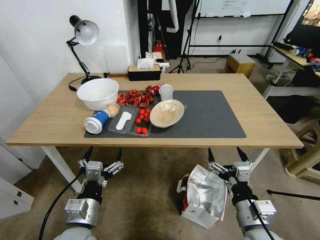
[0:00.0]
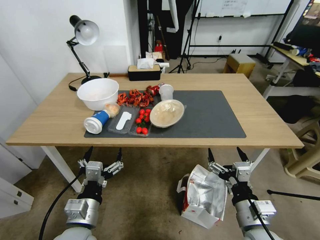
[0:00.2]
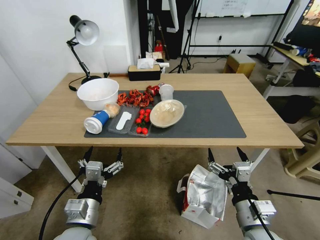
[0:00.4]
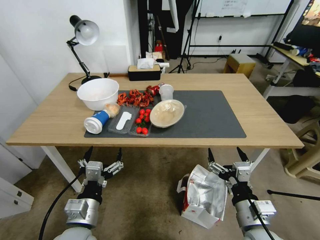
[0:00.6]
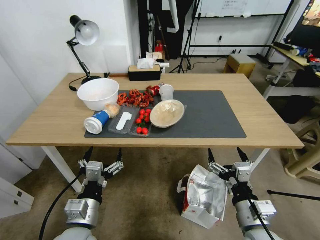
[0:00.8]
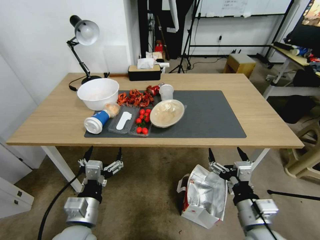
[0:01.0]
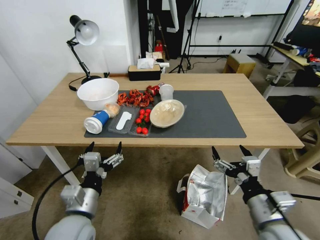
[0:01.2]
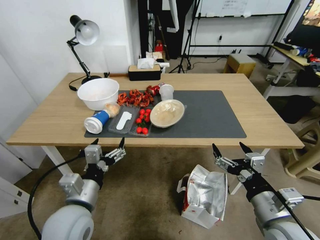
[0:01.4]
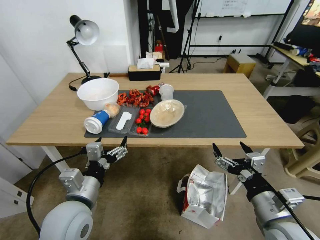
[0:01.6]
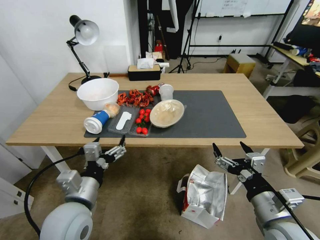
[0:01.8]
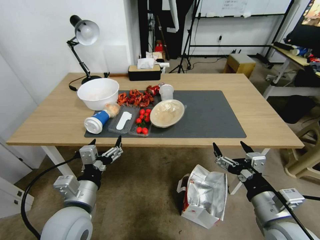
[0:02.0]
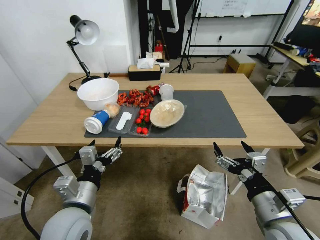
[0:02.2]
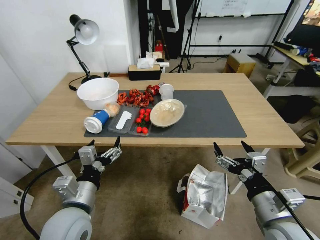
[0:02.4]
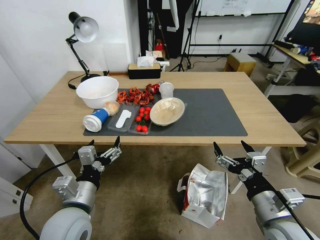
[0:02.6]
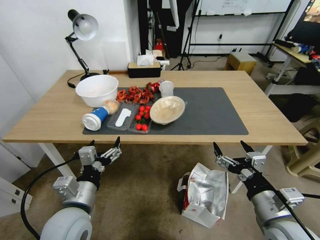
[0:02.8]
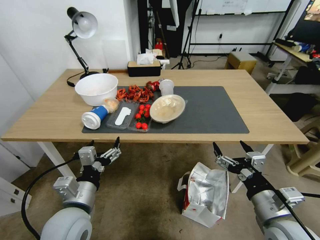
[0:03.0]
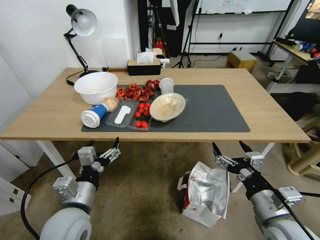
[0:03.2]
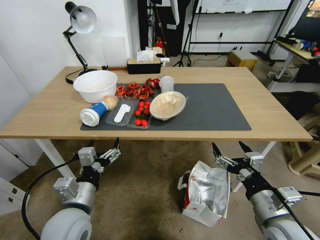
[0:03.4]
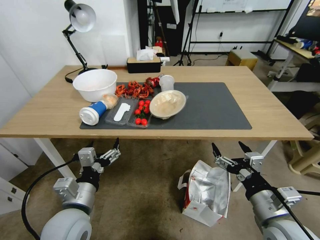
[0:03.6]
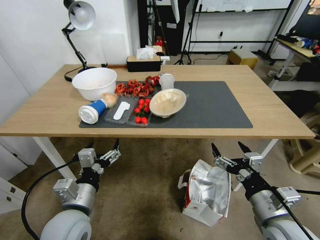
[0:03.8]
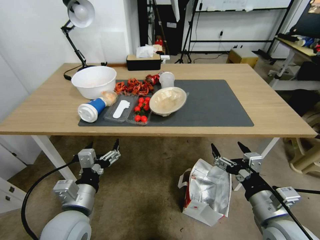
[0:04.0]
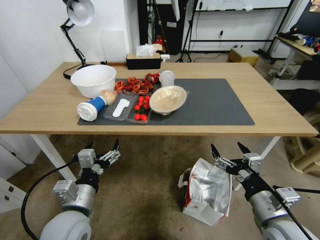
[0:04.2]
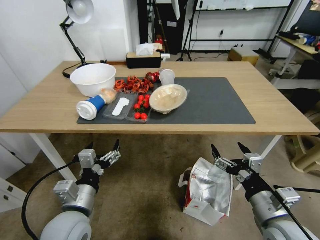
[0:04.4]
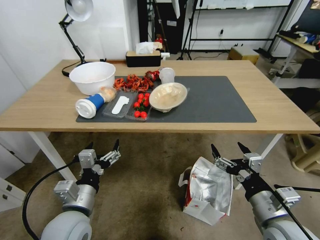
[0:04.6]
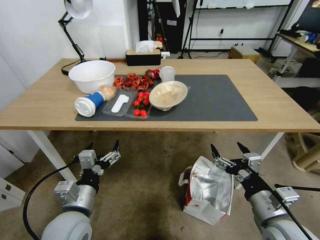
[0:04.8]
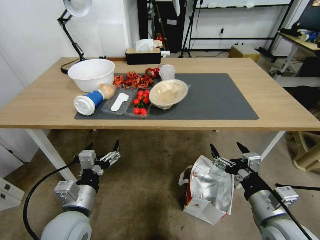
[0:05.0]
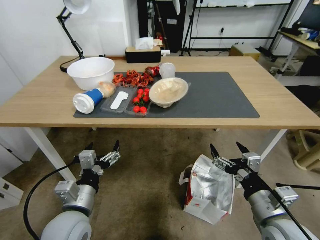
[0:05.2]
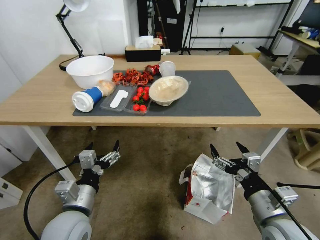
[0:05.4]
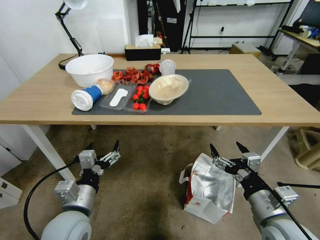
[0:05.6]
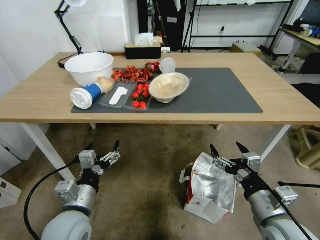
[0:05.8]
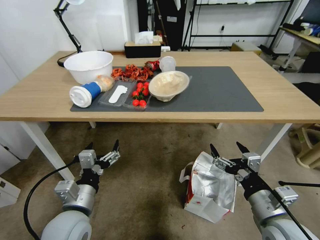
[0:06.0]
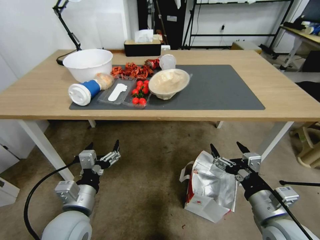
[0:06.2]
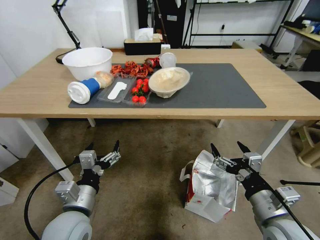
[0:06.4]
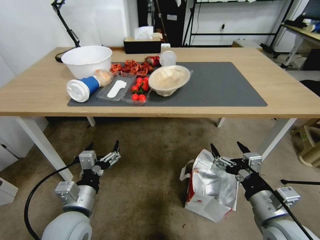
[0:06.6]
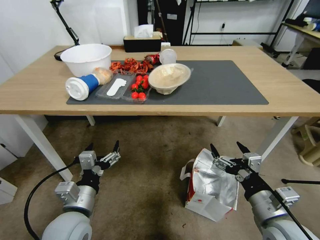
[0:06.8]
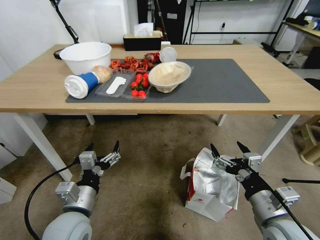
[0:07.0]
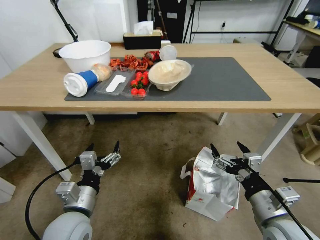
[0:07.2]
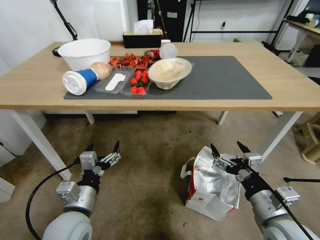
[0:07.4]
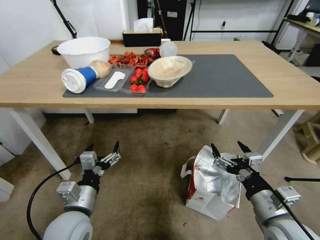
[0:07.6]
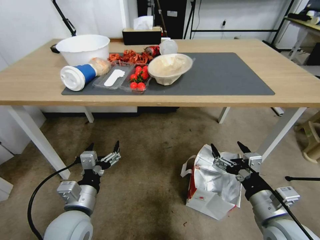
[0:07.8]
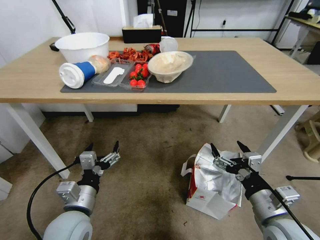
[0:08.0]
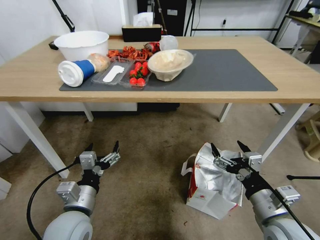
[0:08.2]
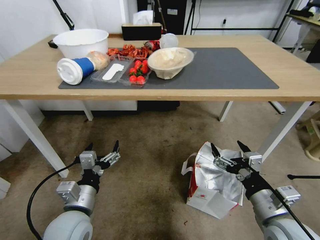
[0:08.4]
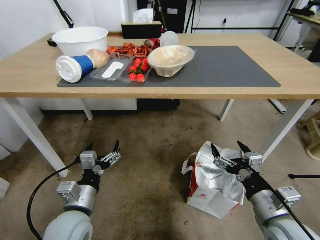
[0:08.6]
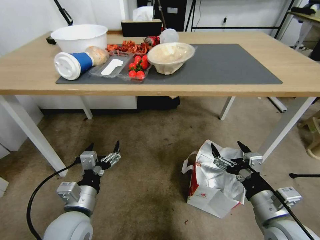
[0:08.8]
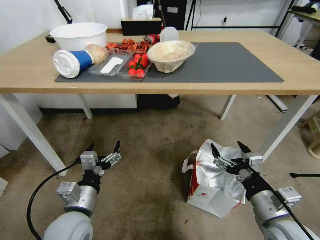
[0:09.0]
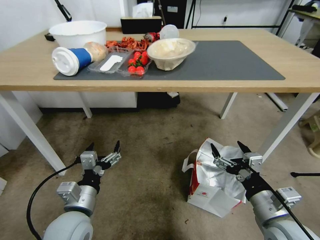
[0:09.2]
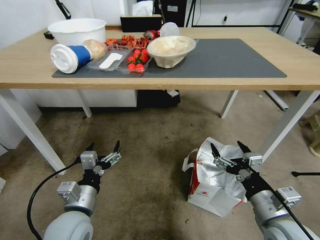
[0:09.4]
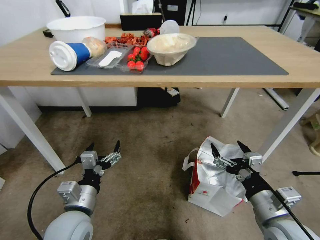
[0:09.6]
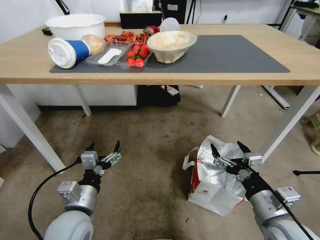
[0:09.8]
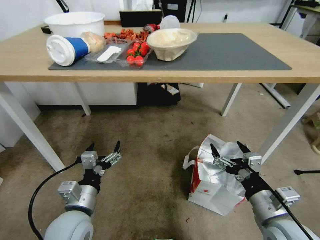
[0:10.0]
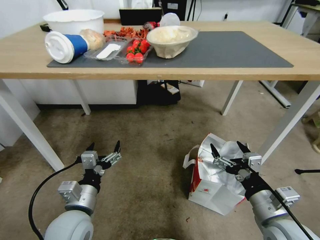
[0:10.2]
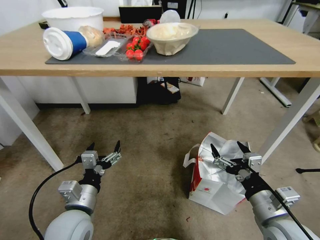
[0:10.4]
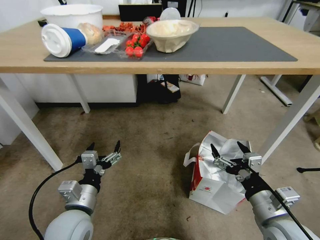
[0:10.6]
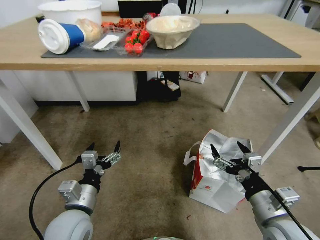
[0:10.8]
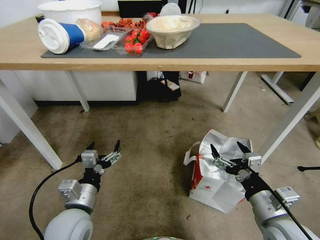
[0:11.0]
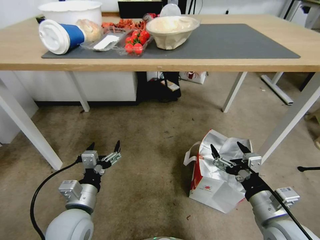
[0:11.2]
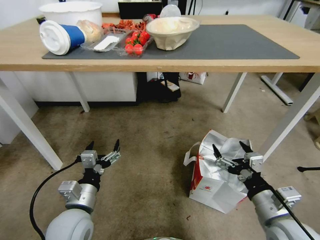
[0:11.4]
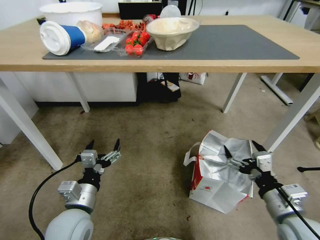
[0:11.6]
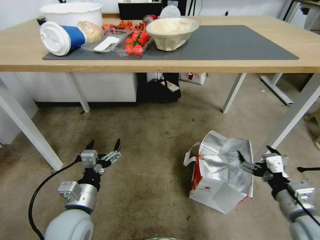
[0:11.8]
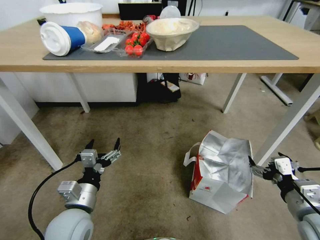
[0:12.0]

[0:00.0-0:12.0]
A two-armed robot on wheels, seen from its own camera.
Task of the whole recording: Pick up the food delivery bag from the floor and place it on the table.
0:10.4 to 0:12.0: The right gripper travels to the right by about 10 cm.

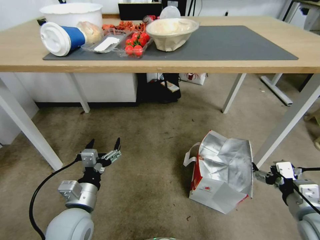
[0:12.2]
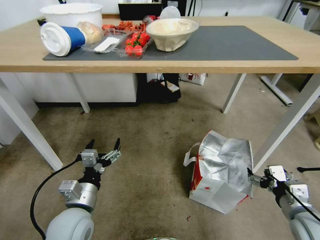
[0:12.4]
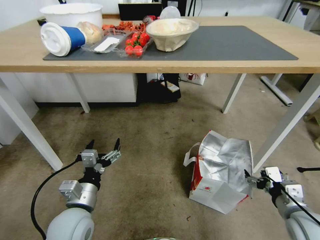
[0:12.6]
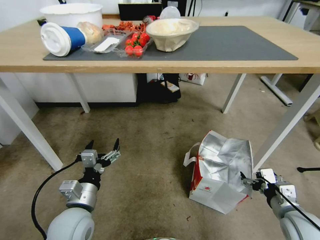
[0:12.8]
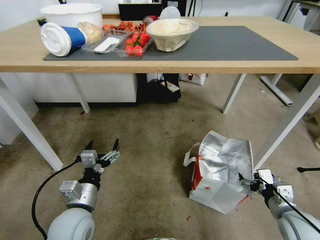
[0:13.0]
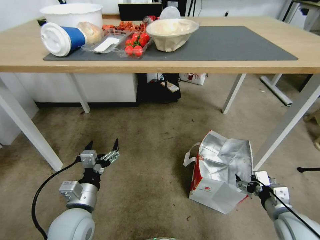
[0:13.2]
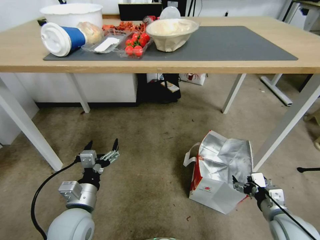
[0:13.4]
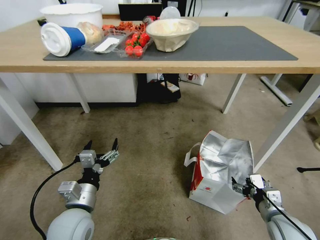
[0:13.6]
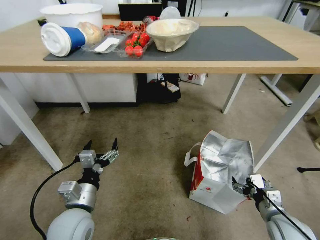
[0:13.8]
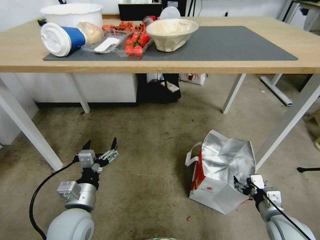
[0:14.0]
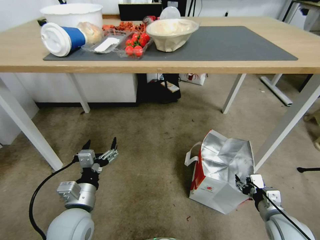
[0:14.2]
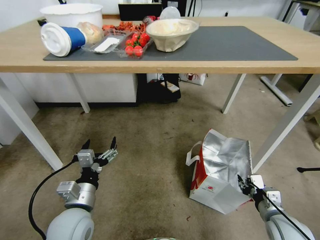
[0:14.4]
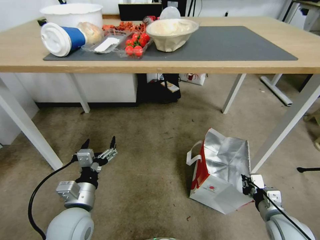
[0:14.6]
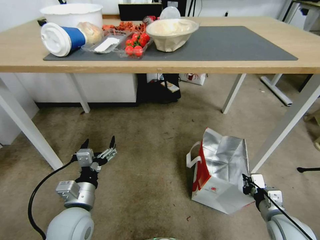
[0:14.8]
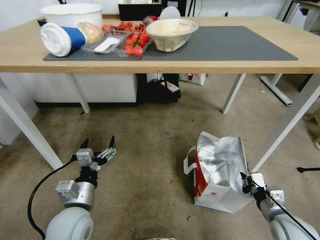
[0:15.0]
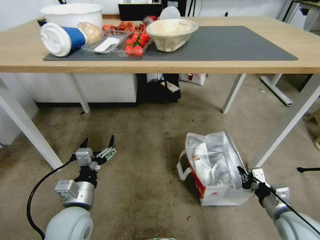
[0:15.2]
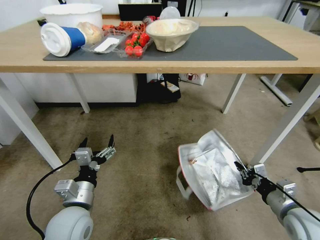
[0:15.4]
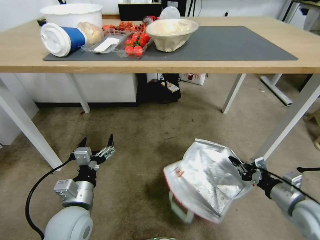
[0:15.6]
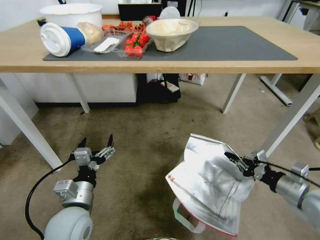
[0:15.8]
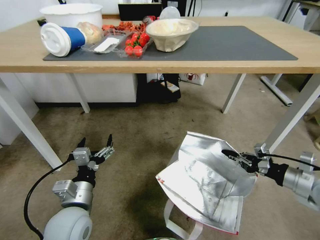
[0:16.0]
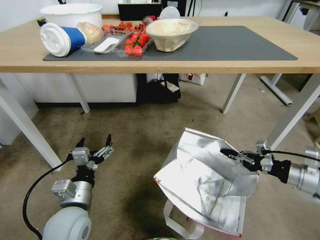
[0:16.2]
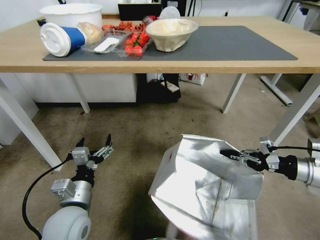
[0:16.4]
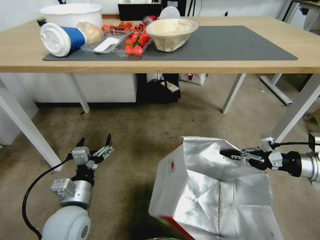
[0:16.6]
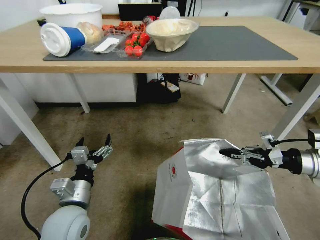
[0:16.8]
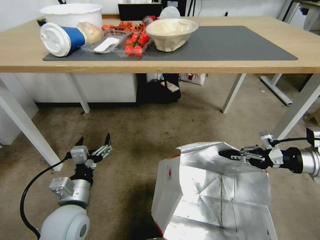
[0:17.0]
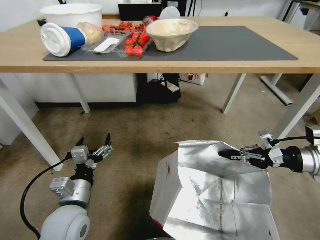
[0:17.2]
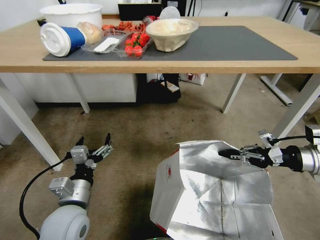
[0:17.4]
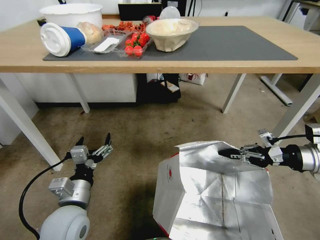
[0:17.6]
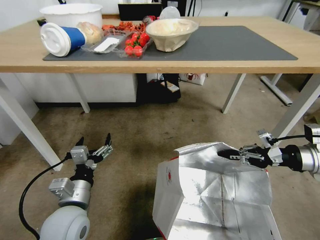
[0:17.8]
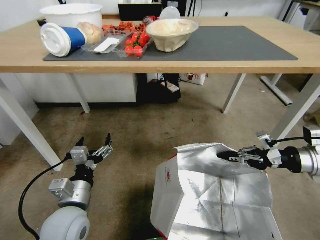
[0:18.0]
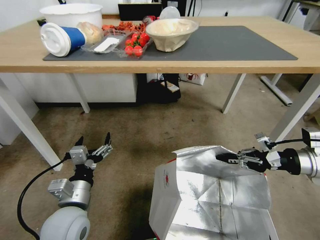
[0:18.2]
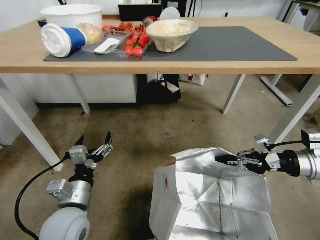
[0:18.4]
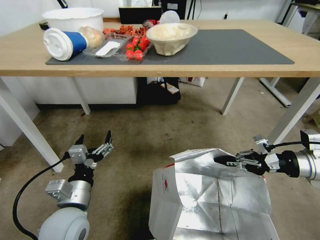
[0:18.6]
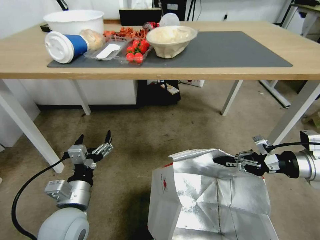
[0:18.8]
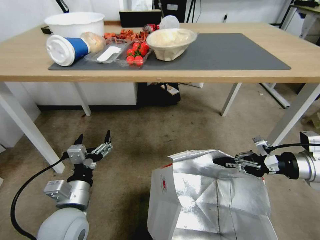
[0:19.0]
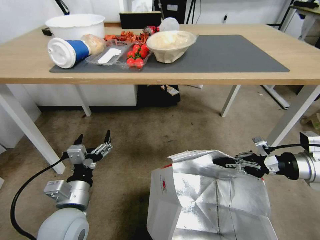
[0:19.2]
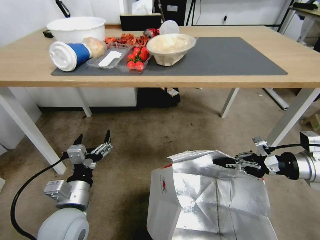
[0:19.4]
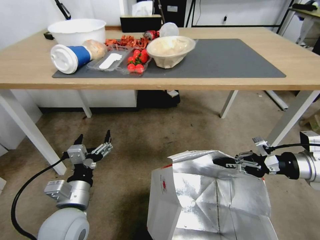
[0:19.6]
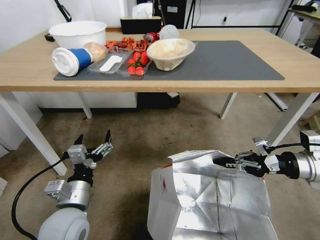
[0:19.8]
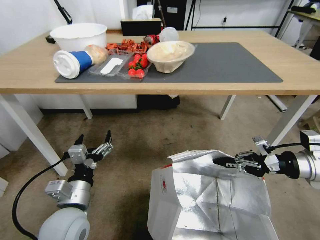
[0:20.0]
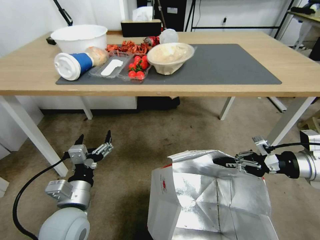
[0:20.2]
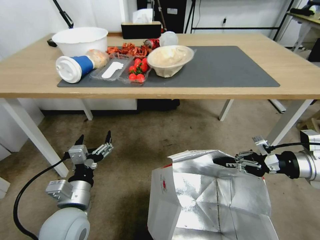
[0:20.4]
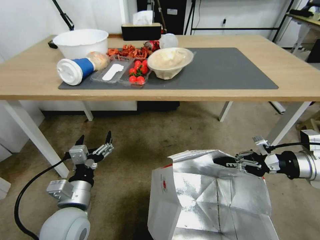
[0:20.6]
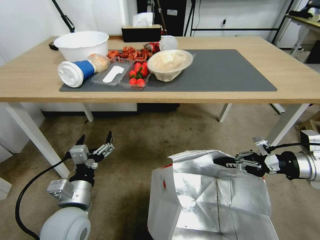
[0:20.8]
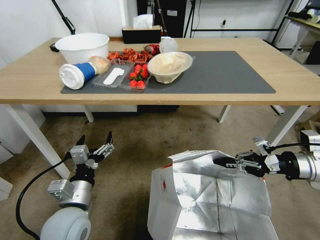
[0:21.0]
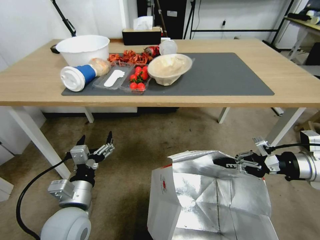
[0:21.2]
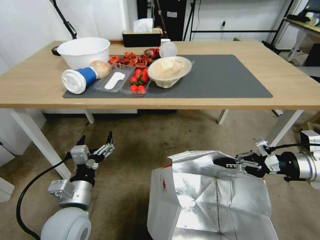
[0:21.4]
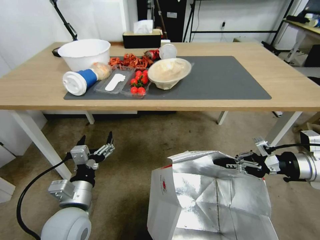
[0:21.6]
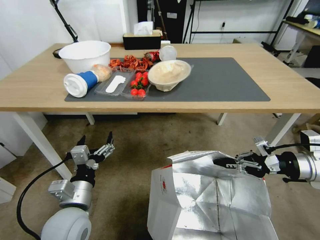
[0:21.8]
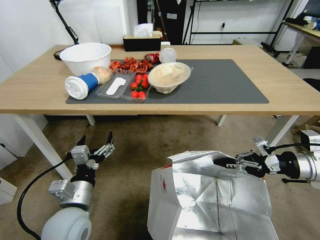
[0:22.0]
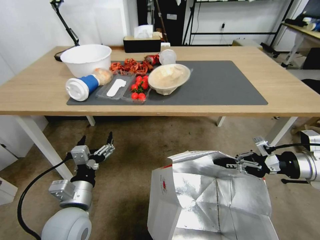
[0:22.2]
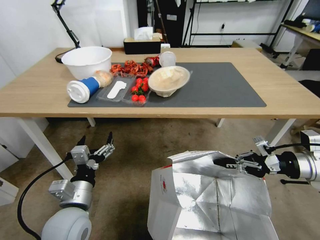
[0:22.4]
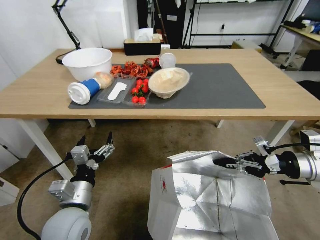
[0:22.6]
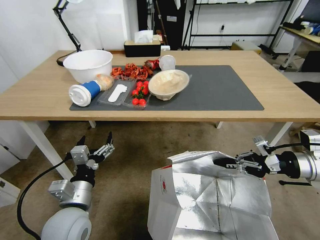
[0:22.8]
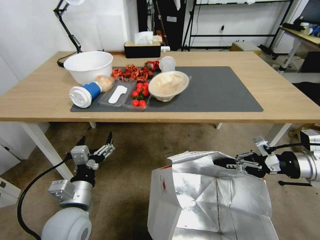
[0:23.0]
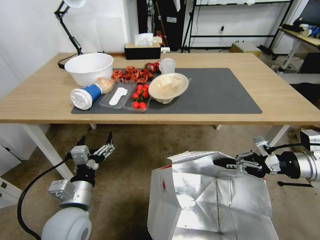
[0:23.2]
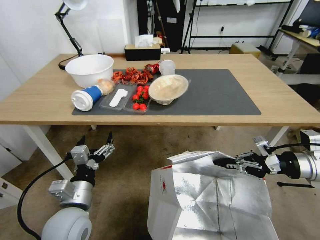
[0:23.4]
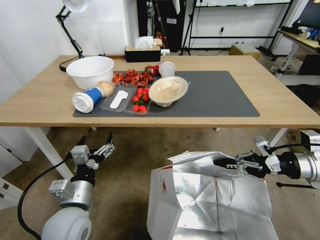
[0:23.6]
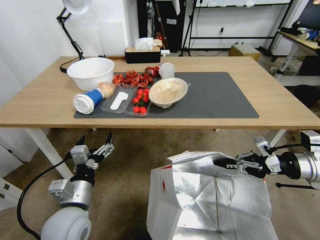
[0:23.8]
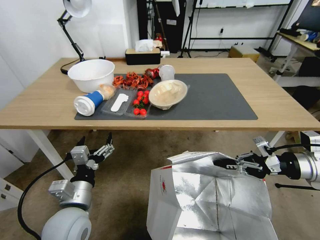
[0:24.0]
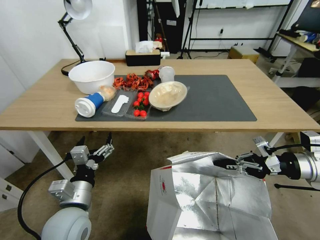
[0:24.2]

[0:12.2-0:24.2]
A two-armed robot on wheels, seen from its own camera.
Task of the whole recording: Pick up the food delivery bag from the floor and place it on the table.
0:12.2 to 0:13.8: The right gripper shifts about 10 cm downward.
0:13.8 to 0:15.2: The right gripper closes.
0:15.2 to 0:16.6: The right gripper heads upward, forward and to the right, covering some 20 cm.
0:16.6 to 0:18.2: The grippers stay close to where they were, moving slightly.
